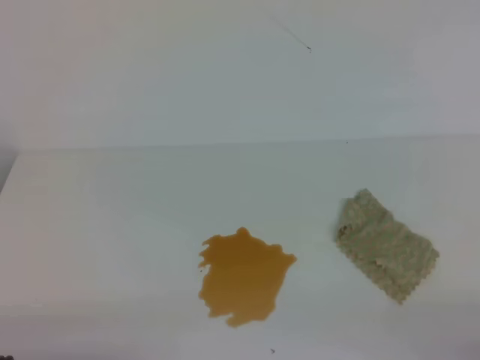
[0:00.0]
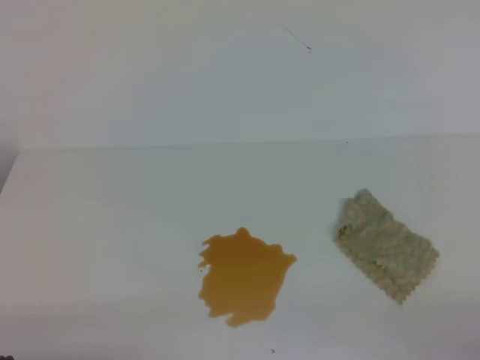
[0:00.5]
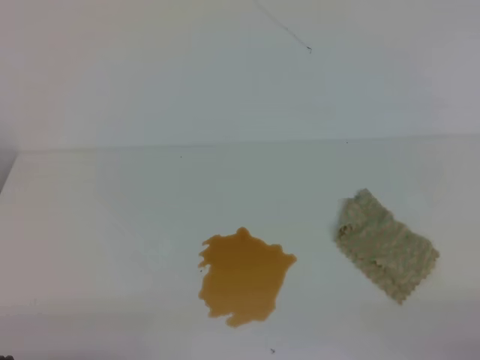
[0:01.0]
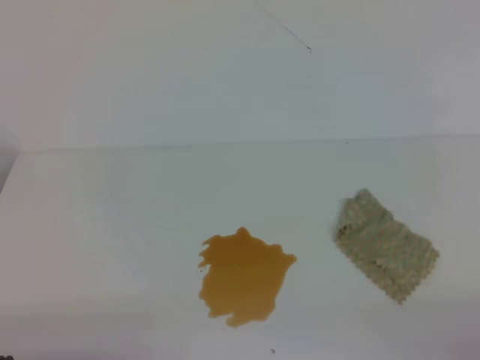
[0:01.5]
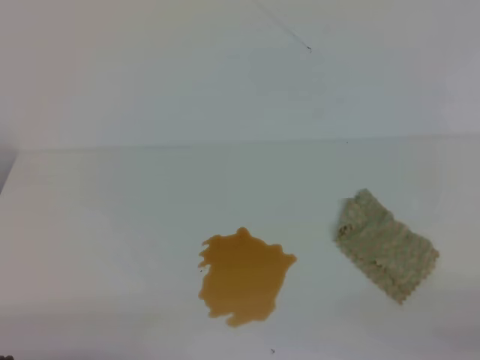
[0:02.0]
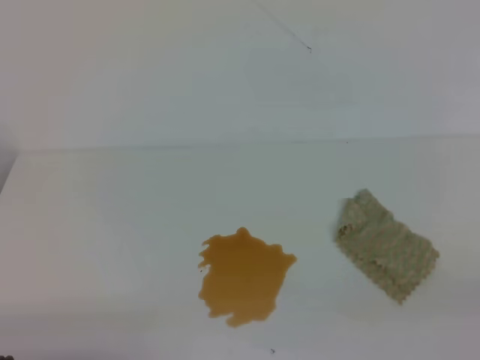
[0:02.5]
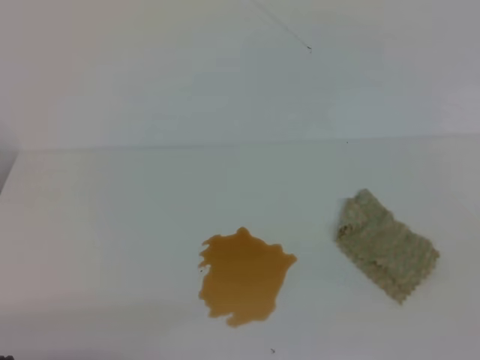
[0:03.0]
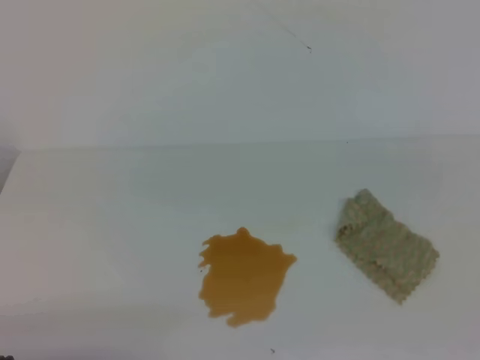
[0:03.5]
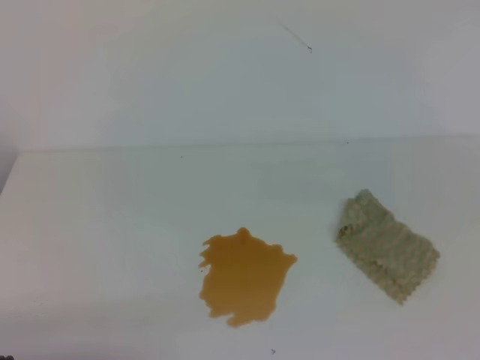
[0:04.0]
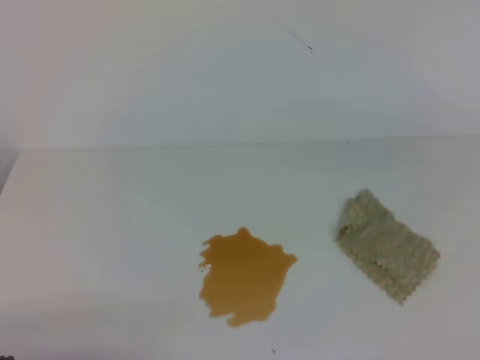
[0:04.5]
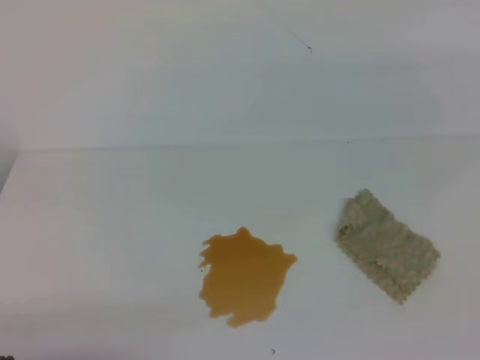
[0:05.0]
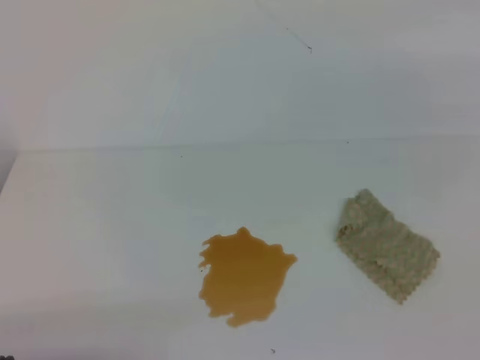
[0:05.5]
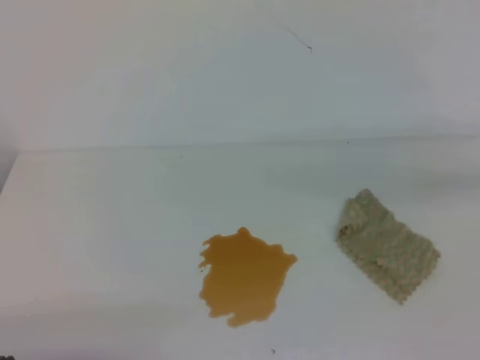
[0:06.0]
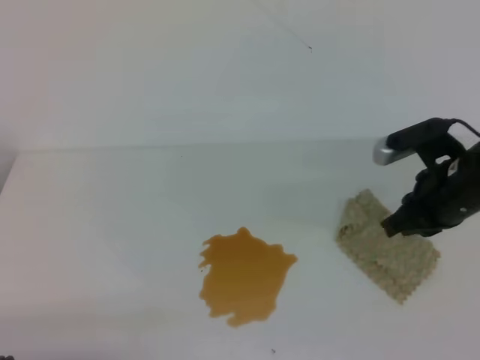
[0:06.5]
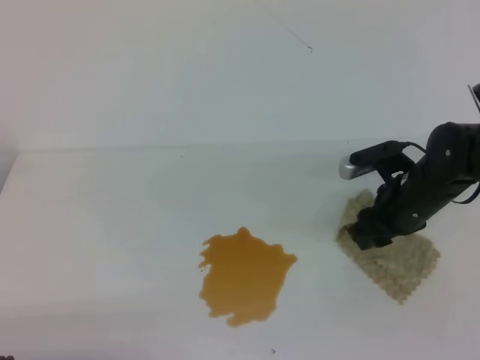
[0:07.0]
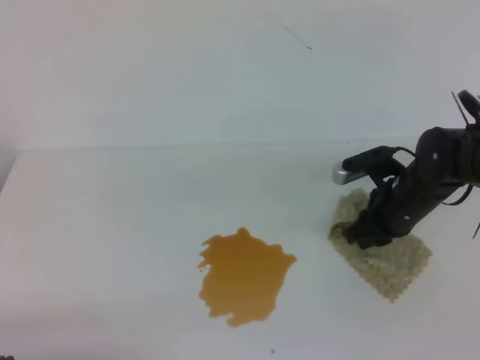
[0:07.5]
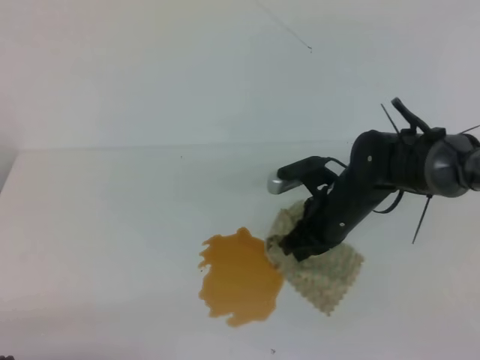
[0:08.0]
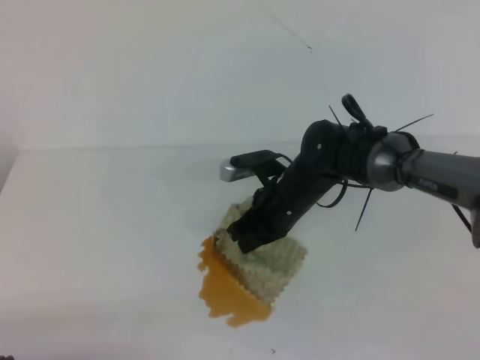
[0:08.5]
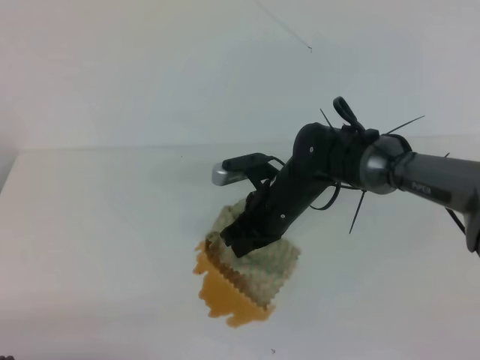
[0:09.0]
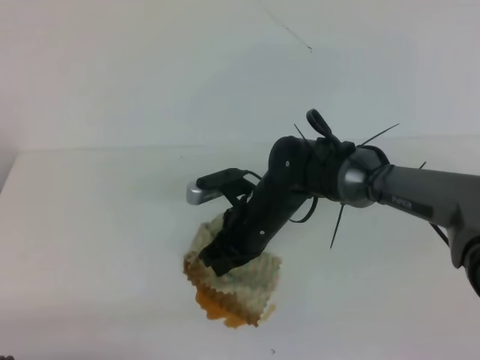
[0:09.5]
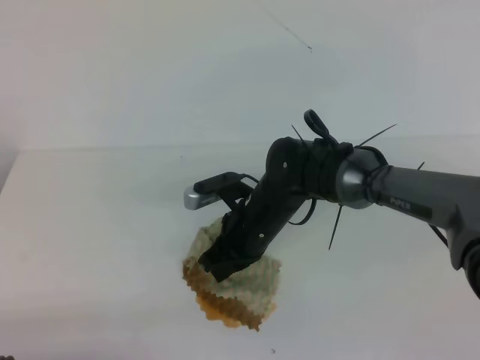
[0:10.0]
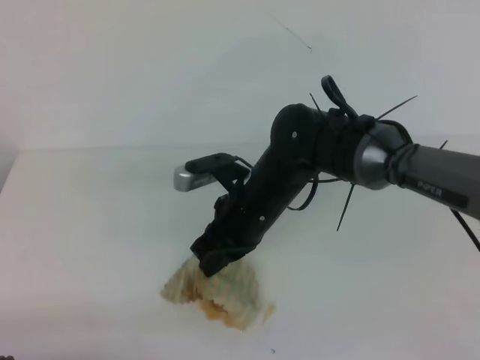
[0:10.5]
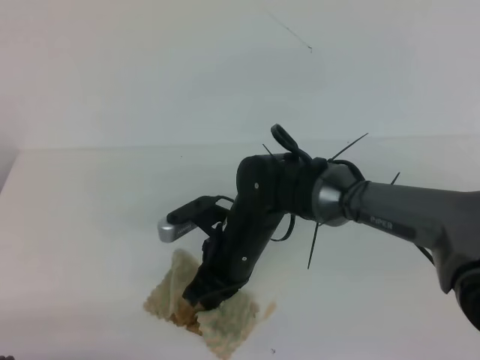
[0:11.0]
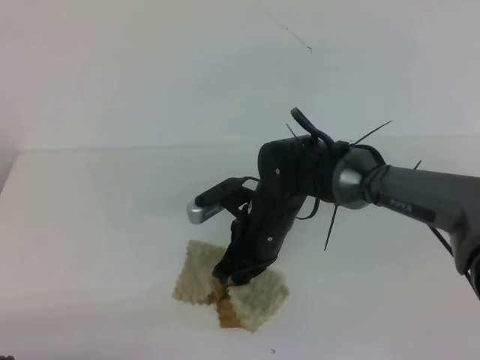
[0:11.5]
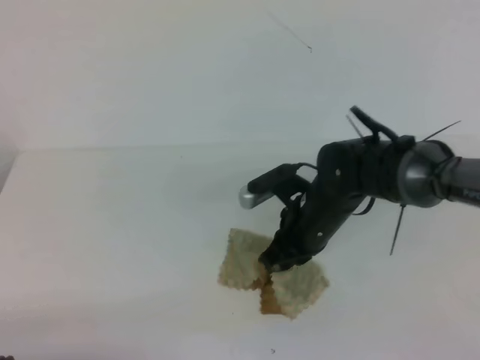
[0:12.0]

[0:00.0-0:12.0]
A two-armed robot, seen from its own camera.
0:06.0 to 0:08.0: The right gripper shifts about 25 cm to the left and downward, and opens, then closes again.
0:08.0 to 0:10.0: The right gripper moves to the left, about 10 cm.
0:10.0 to 0:12.0: The right gripper heads to the right, covering some 5 cm.

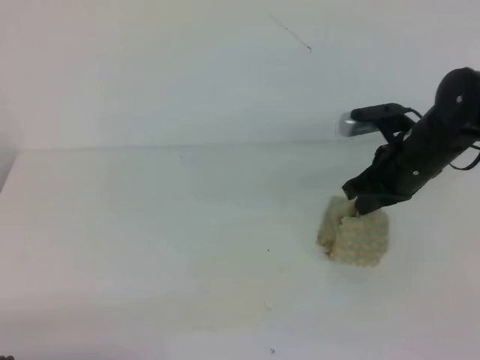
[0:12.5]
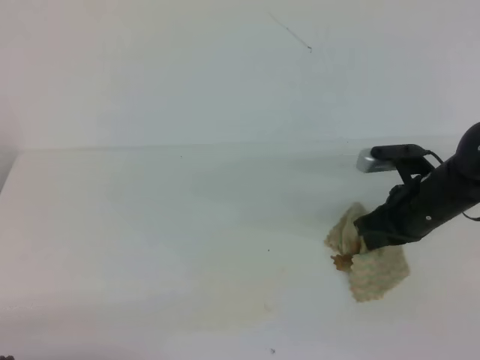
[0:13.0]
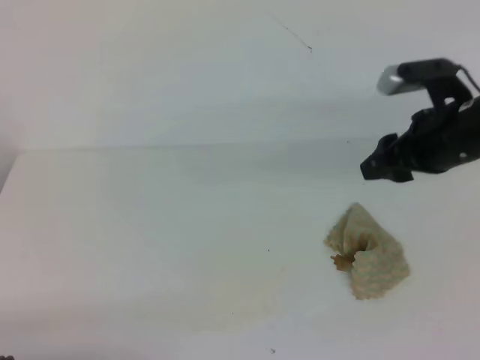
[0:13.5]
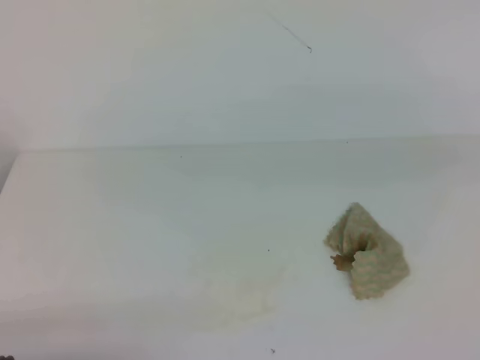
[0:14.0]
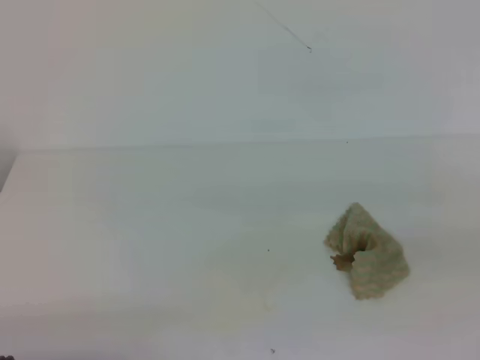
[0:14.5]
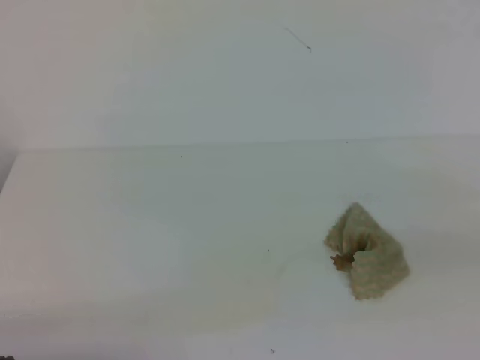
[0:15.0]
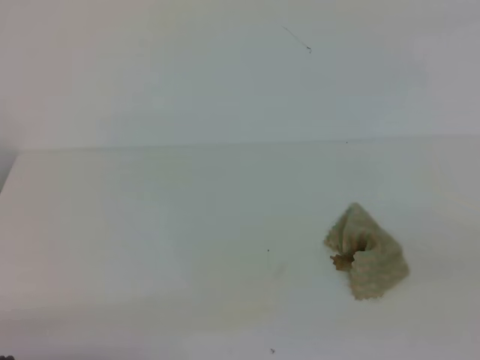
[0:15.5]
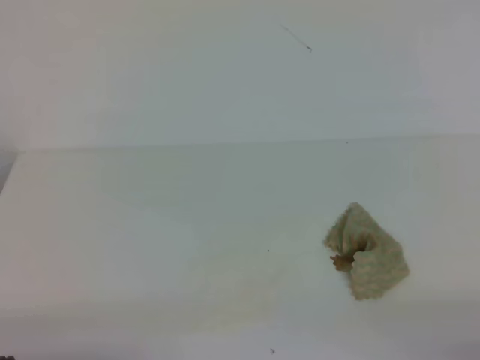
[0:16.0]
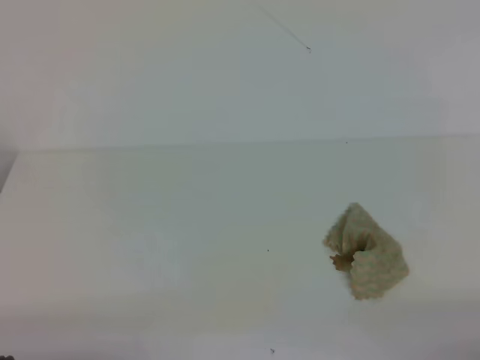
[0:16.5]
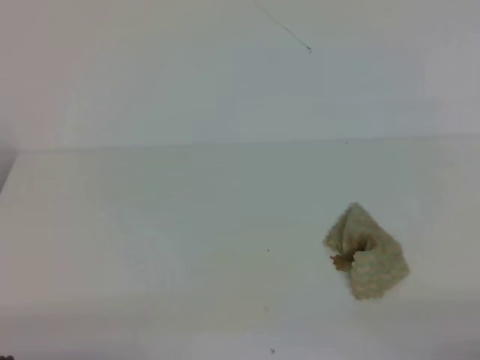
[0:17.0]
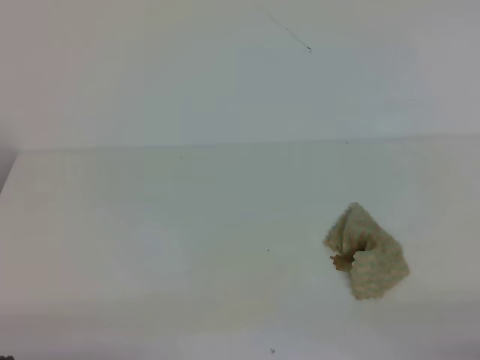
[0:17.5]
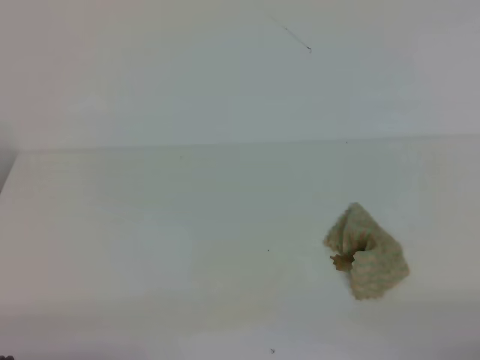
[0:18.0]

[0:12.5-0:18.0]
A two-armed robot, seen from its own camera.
0:12.5 to 0:14.5: The right gripper heads backward, upward and to the right, covering approximately 30 cm, and opens, then closes once more.

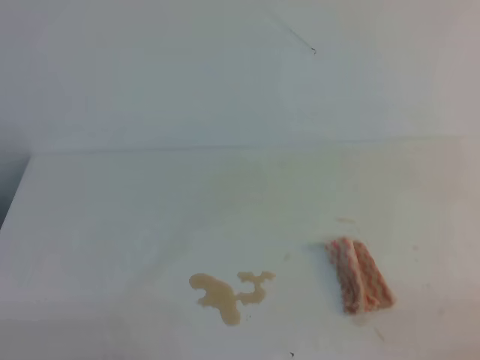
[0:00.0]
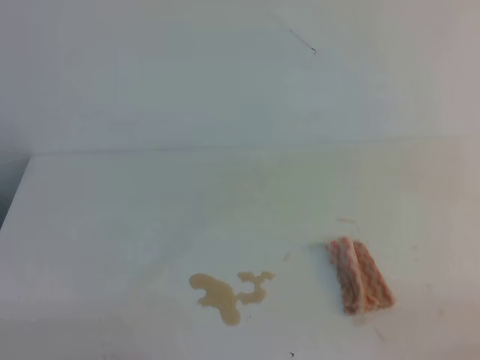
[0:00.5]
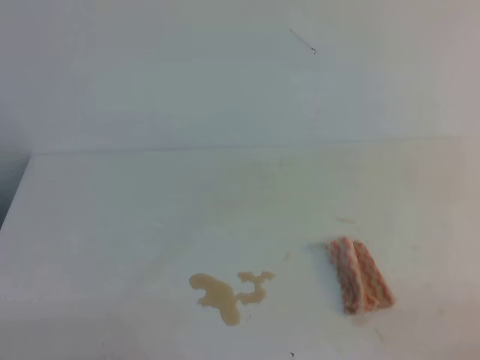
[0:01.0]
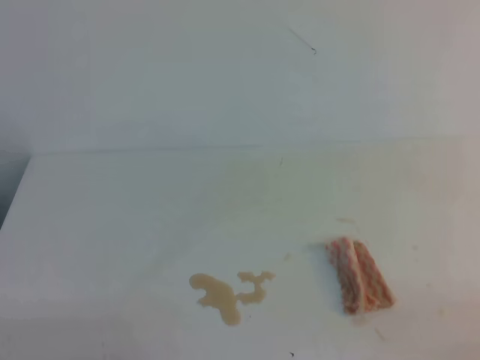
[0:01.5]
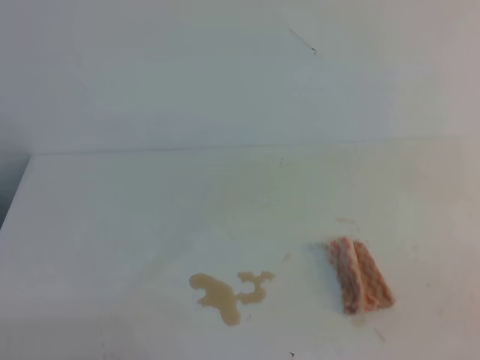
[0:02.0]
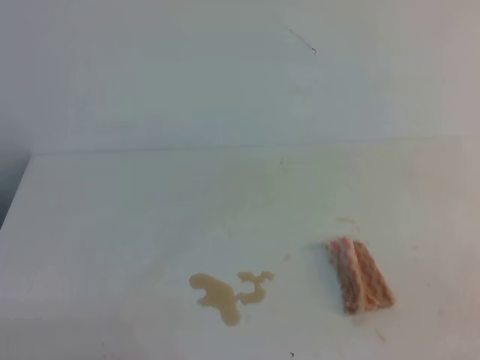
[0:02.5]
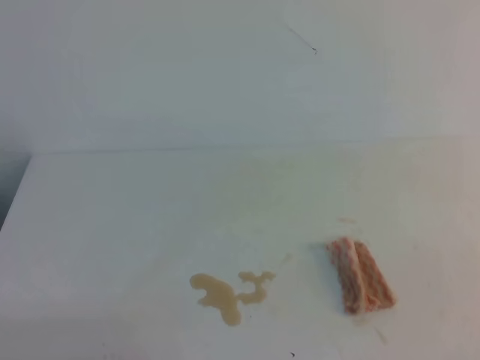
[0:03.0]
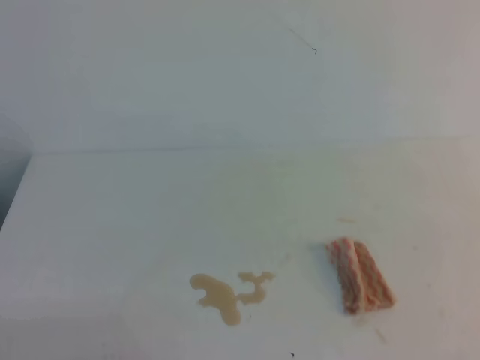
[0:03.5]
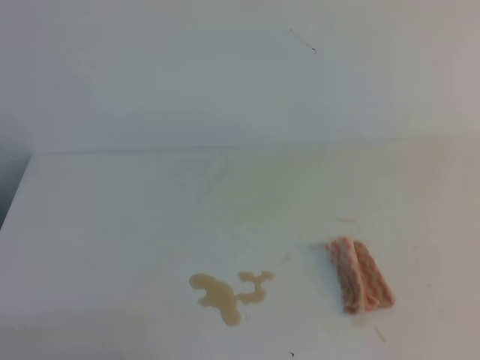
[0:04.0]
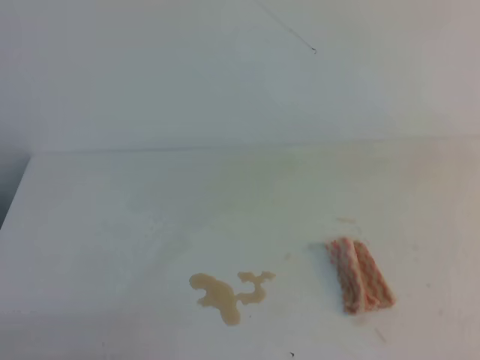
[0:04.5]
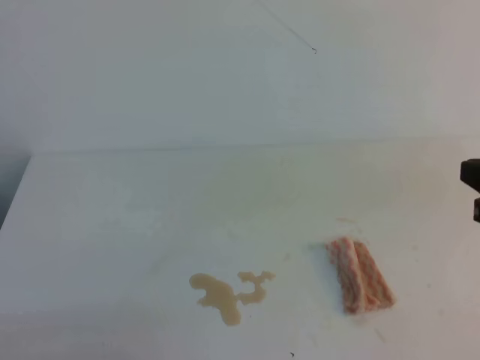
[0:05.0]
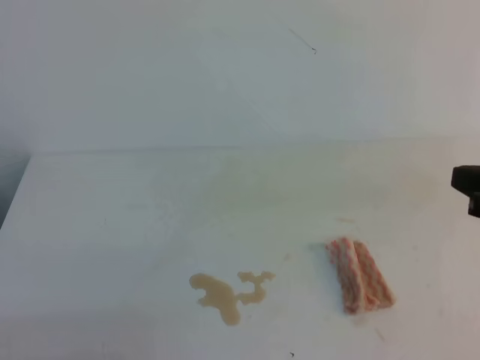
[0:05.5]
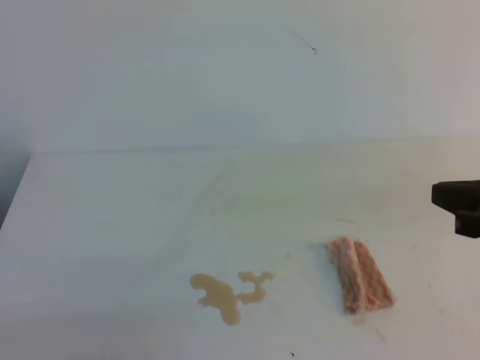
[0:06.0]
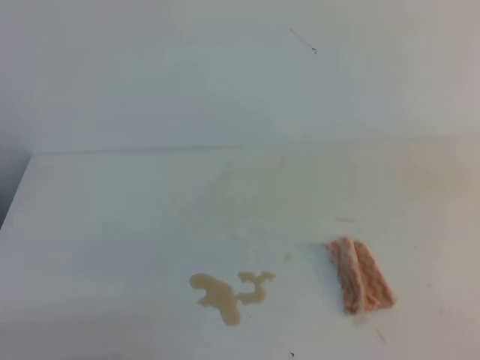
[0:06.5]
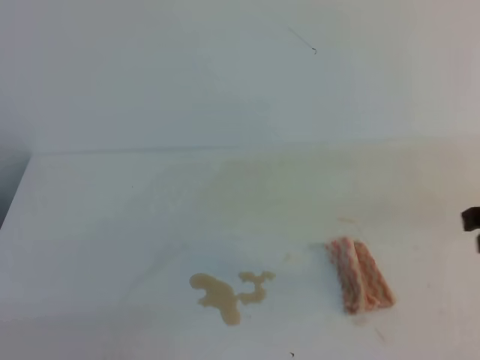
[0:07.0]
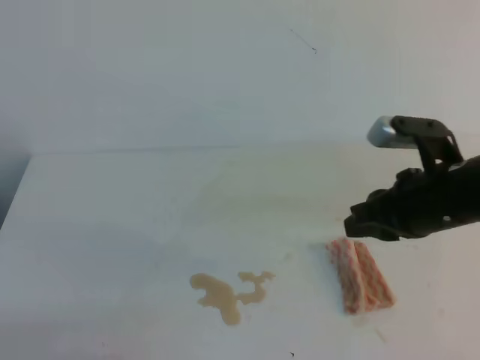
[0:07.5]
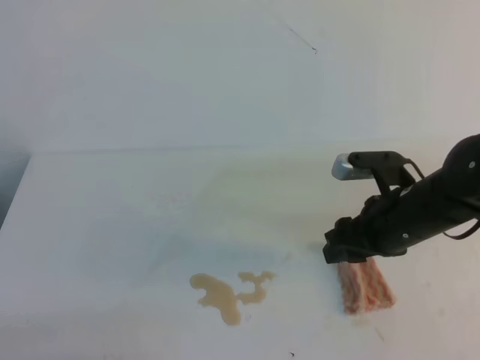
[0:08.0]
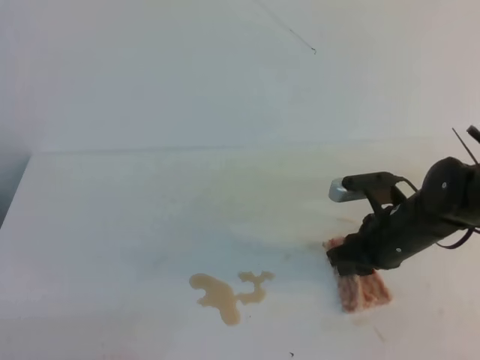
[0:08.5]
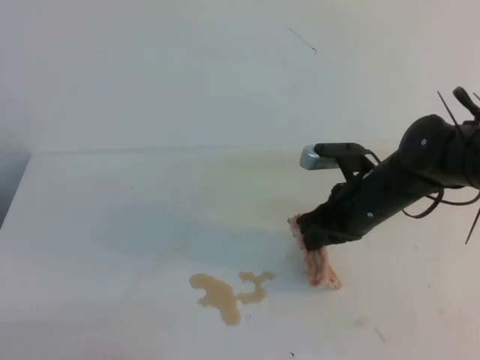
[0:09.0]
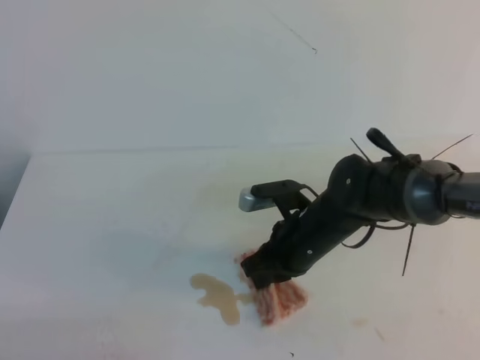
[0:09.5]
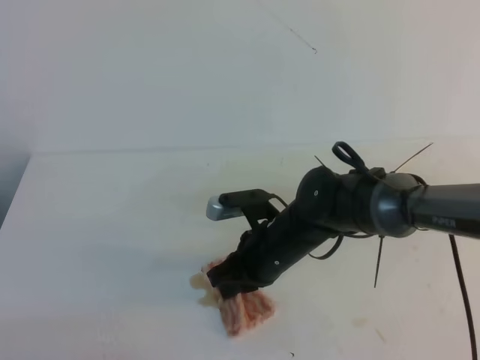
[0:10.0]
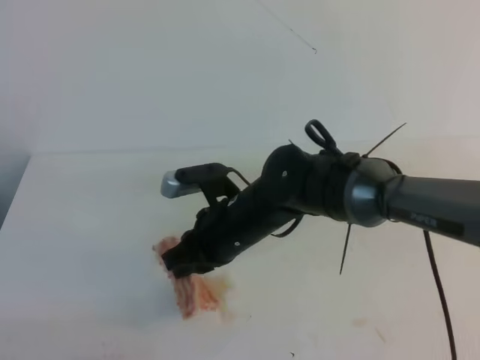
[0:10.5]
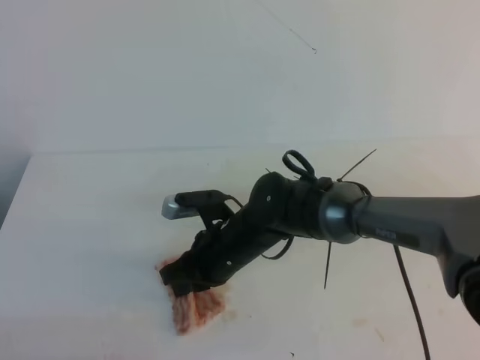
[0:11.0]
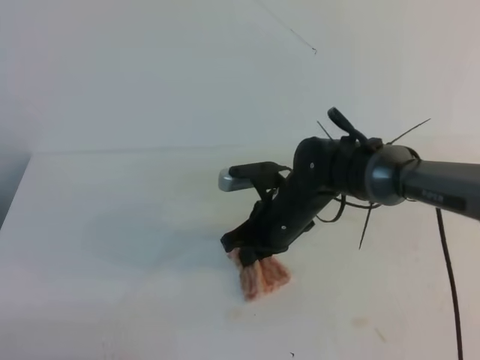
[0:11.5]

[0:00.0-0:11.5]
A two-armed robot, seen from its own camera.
0:04.0 to 0:06.0: The right gripper heads downward, forward and to the left, covering about 15 cm.
0:06.0 to 0:07.5: The right gripper moves forward and to the left, roughly 10 cm.
0:07.5 to 0:09.5: The right gripper moves to the left and downward, about 15 cm, and opens and closes again.
